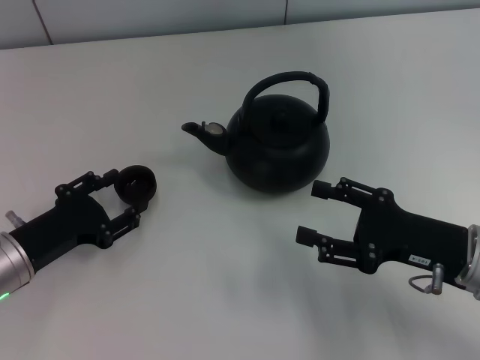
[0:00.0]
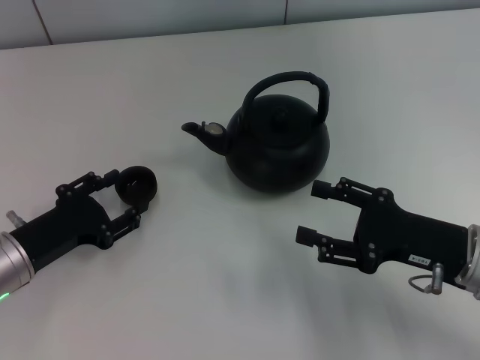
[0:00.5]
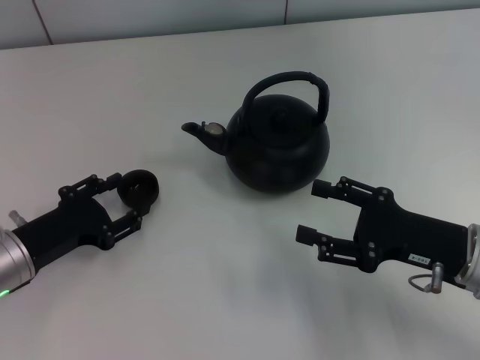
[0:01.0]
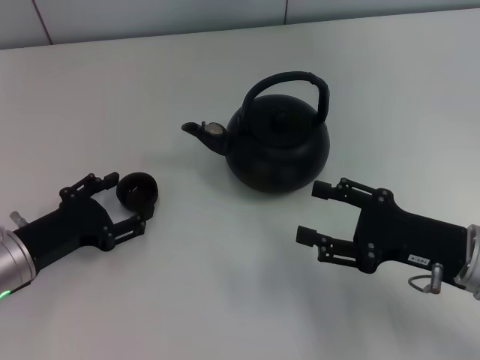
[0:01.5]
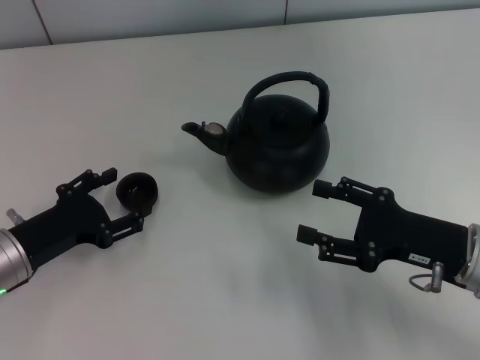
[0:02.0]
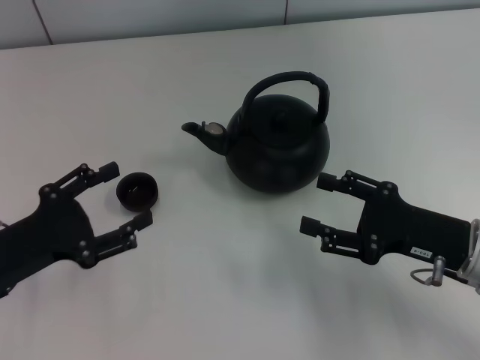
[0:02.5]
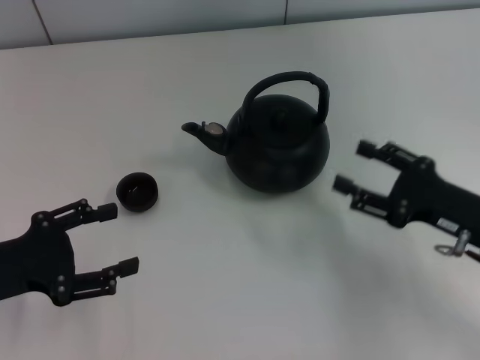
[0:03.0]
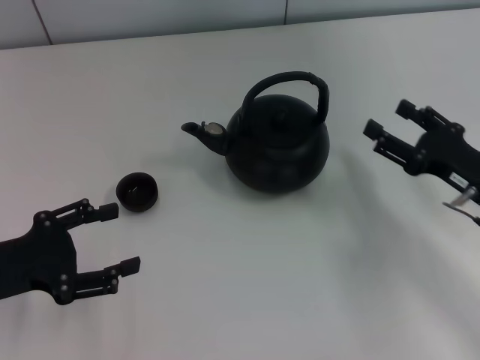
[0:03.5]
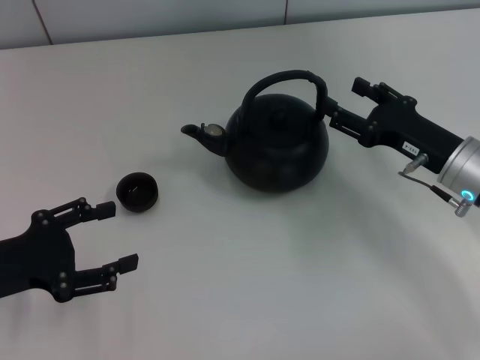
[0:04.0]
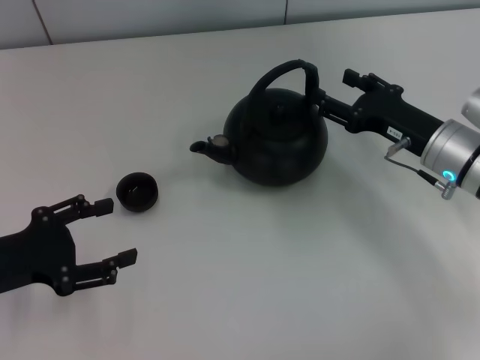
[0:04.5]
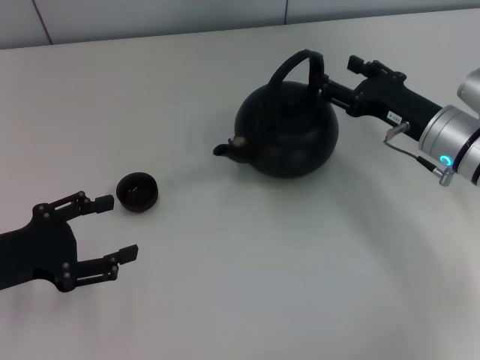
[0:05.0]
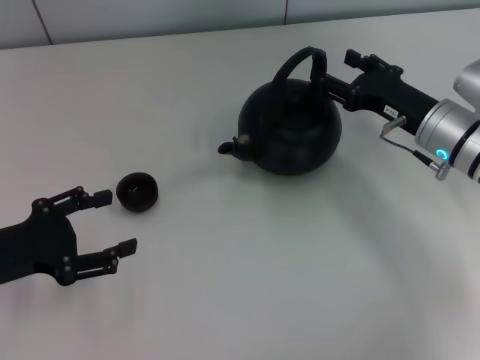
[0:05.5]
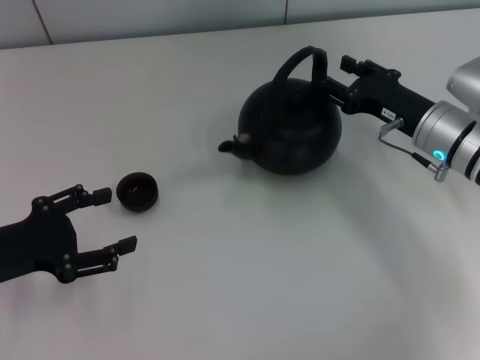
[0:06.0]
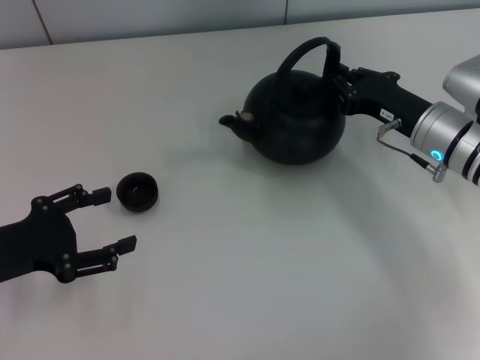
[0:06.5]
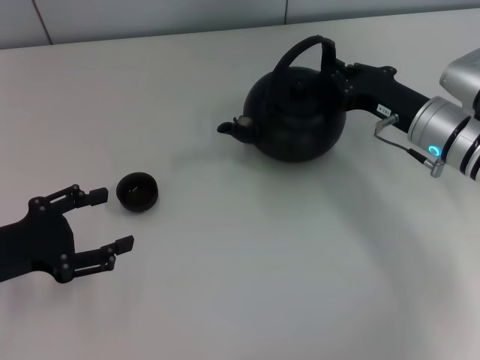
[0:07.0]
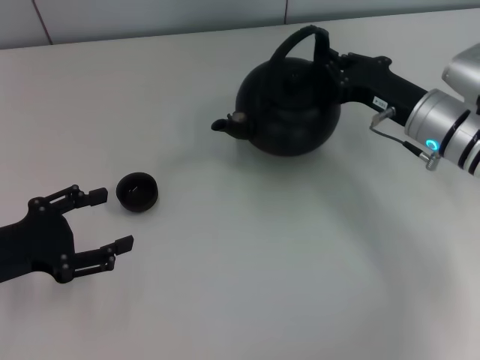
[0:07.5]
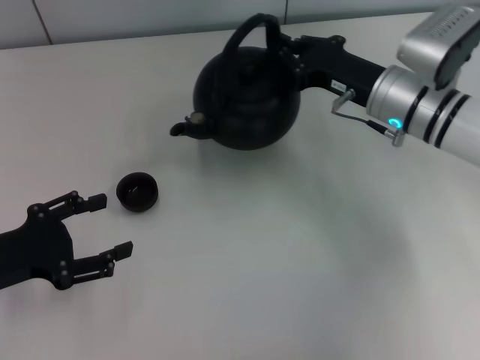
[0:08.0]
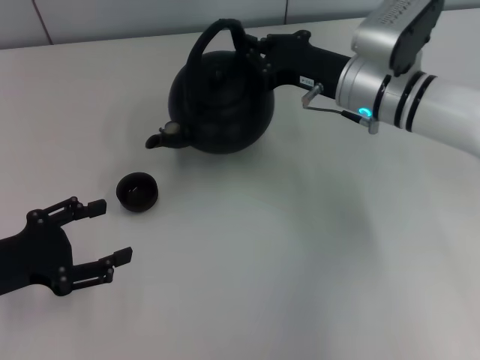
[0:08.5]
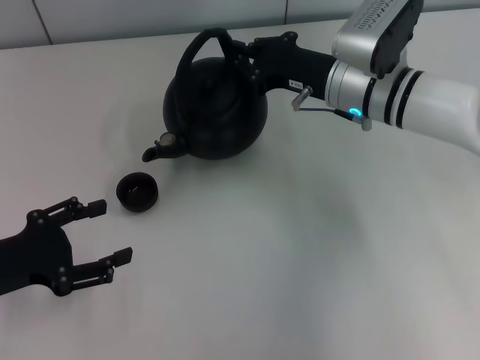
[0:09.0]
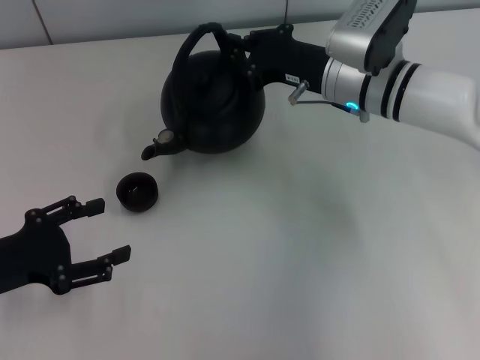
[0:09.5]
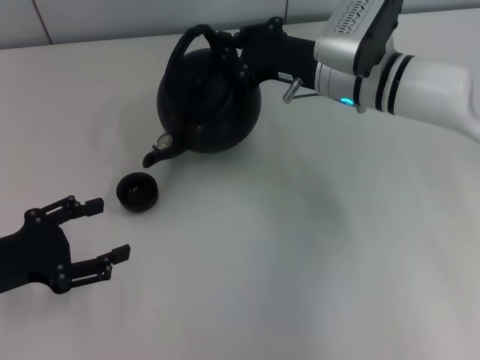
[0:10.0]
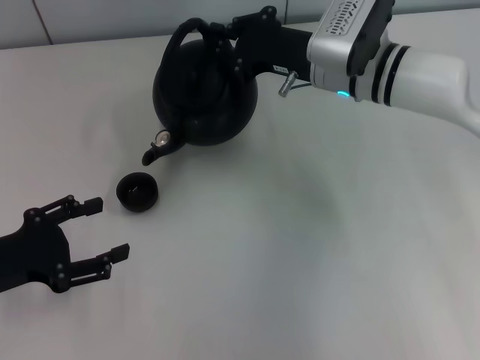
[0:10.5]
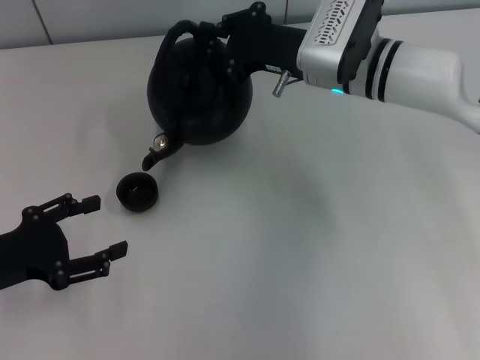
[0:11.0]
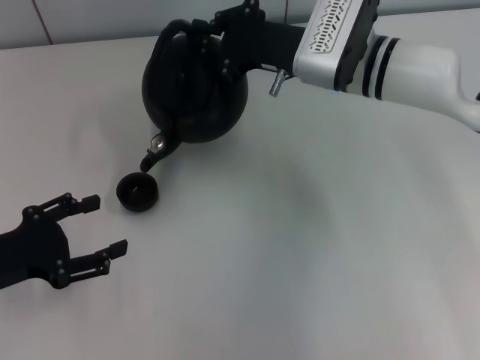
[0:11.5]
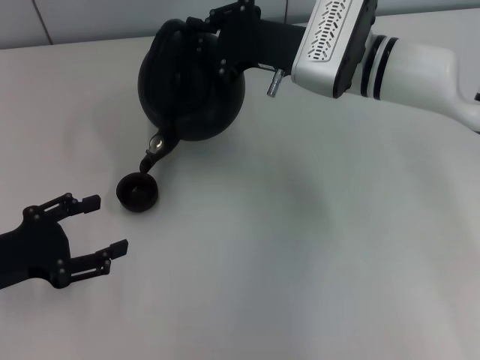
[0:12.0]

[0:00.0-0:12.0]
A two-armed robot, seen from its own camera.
Task of the whole recording: Grasp the handle of the teapot with one hand and pour tea into the teacup.
Step, 0:00.0 to 0:02.0: Place the teacup in the center of view with the left gripper.
Step, 0:02.5 to 0:07.5: Pick up the teapot with the right gripper.
0:00.0 to 0:02.0: The left gripper opens.
0:02.0 to 0:04.0: The right gripper moves forward, roughly 10 cm, while the left gripper shifts about 5 cm upward.
0:04.0 to 0:06.0: The grippers move only a little.
0:06.0 to 0:08.0: The right gripper moves about 5 cm, and closes.
0:08.0 to 0:10.0: The right gripper ends up about 5 cm from where it was.
0:10.0 to 0:12.0: The grippers stay close to where they were, moving slightly.

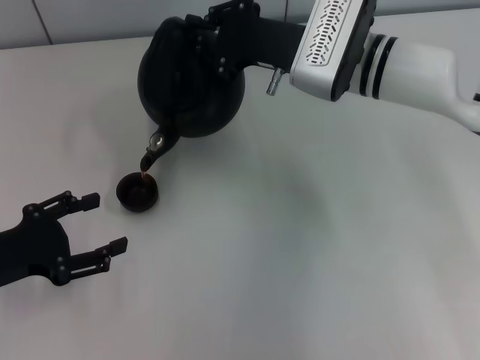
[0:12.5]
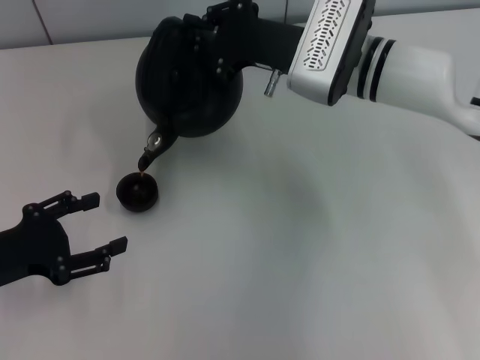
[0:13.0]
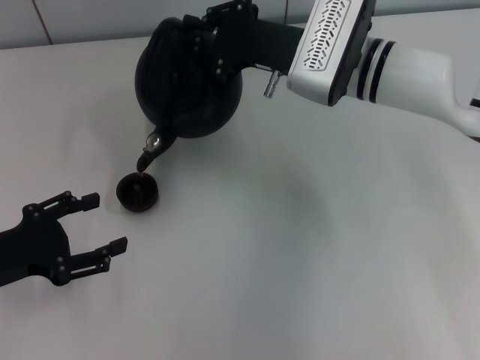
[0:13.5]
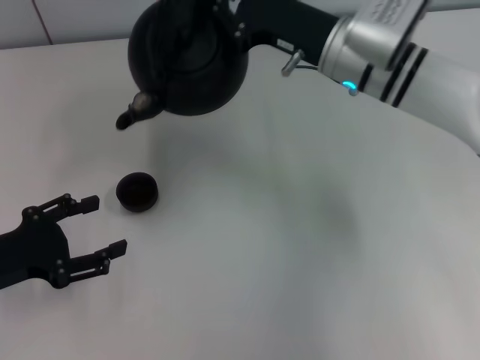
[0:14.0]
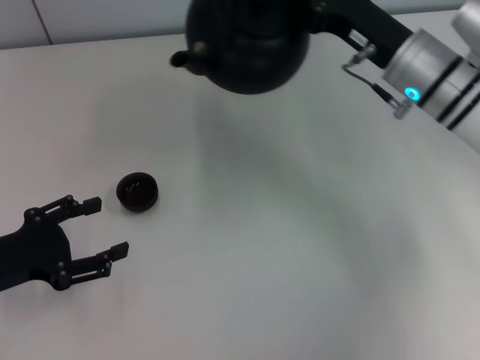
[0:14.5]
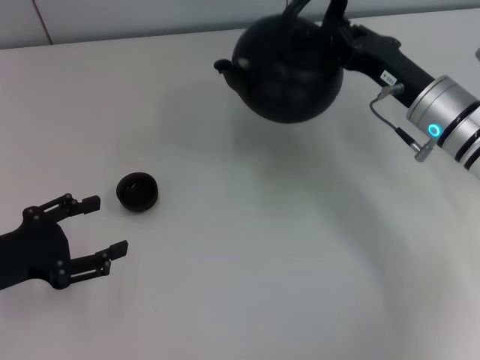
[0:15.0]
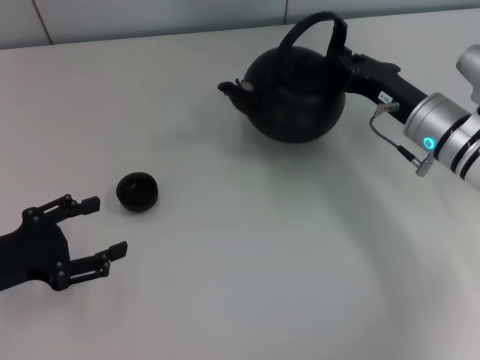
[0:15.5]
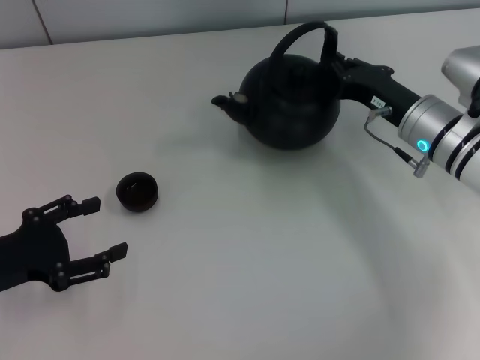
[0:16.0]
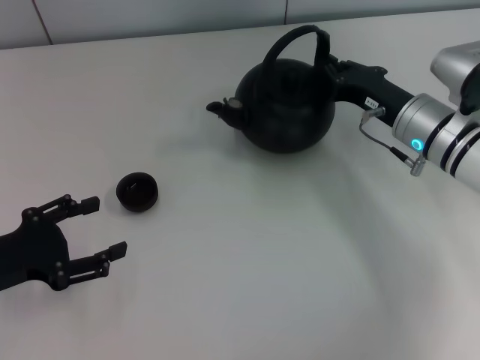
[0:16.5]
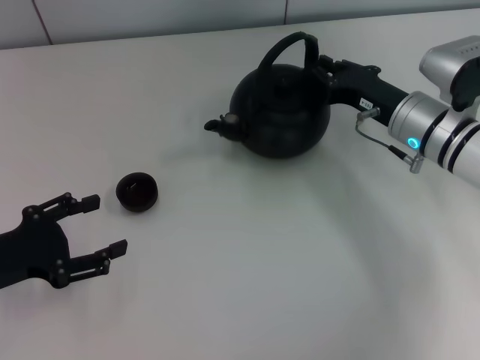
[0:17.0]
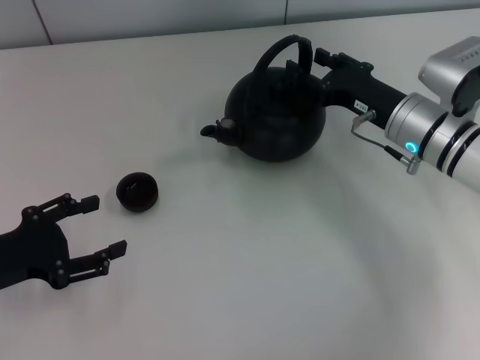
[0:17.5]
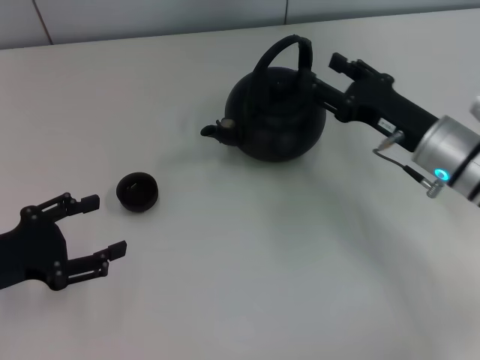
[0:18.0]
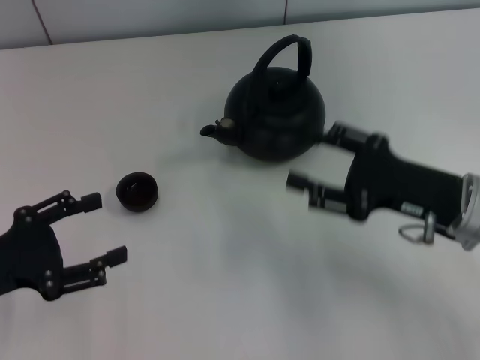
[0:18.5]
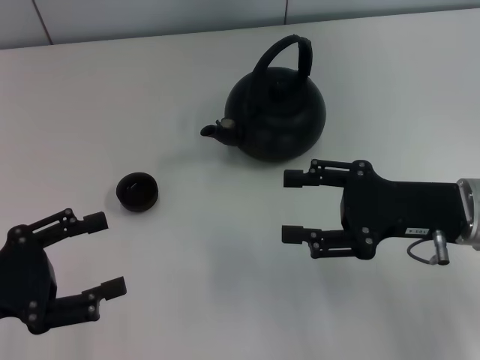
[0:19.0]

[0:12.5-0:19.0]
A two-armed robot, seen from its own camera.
Task of the whole recording: Grasp the handle of the teapot with one hand and pour tea into the teacup.
Step, 0:14.0 to 0:18.0: Put down the teapot with the right gripper.
0:12.5 to 0:14.5: The right gripper shifts approximately 10 cm to the right.
0:14.5 to 0:17.0: The right gripper goes approximately 5 cm downward.
0:17.0 to 0:19.0: The right gripper travels backward by approximately 10 cm, and opens its fingers.

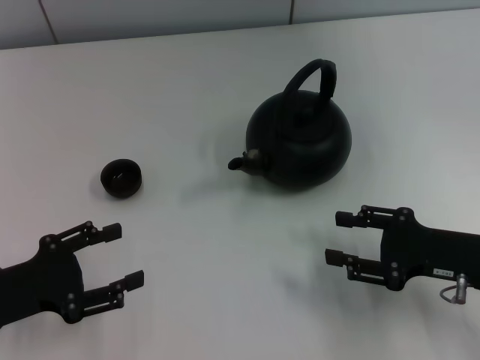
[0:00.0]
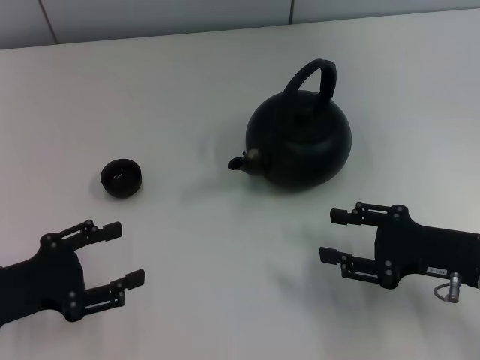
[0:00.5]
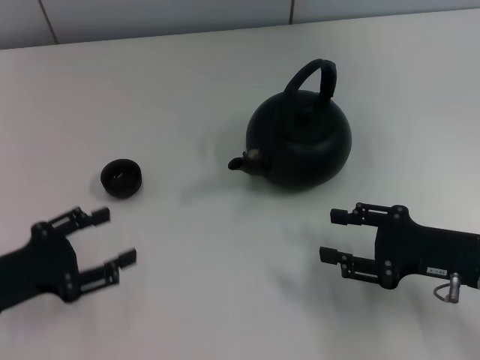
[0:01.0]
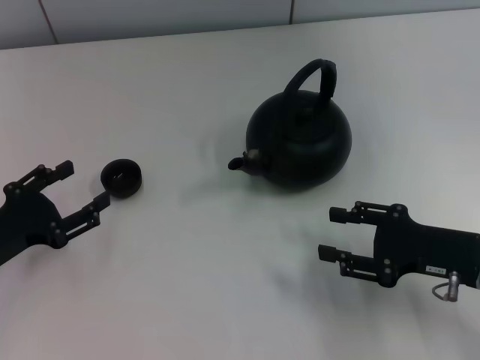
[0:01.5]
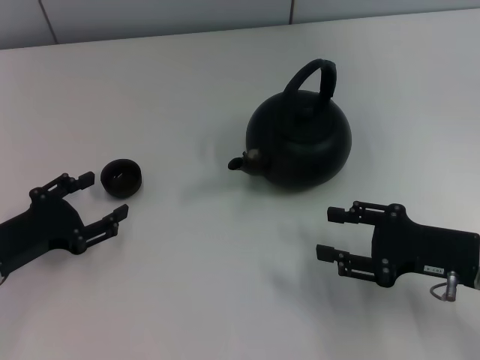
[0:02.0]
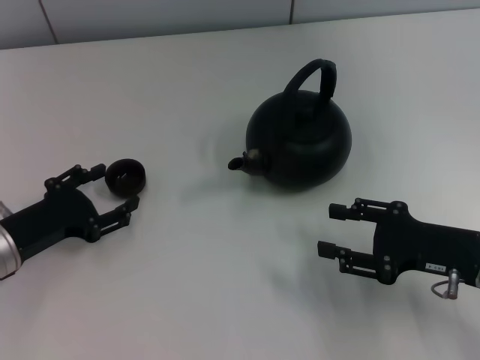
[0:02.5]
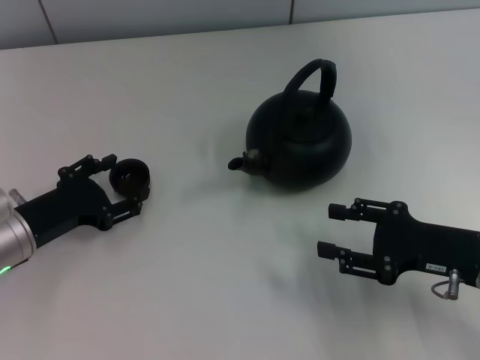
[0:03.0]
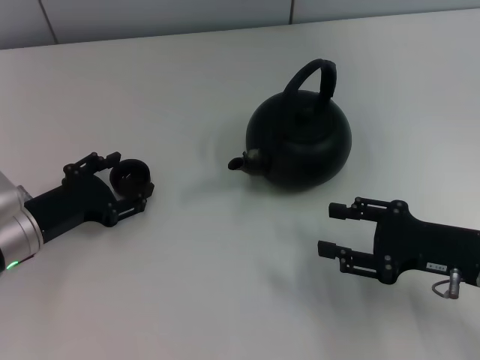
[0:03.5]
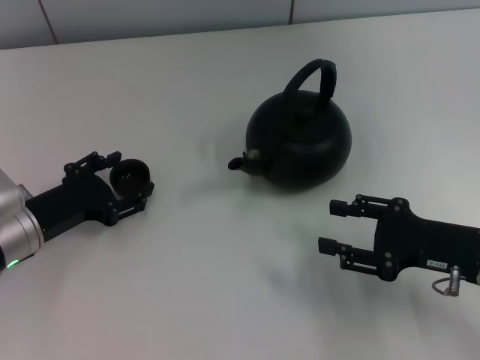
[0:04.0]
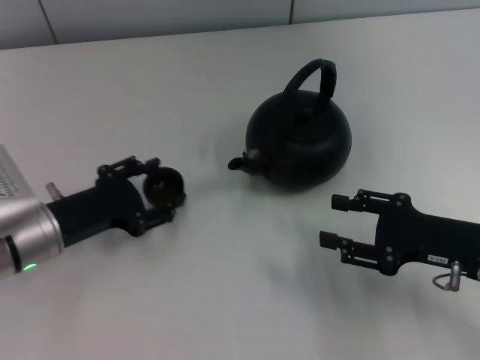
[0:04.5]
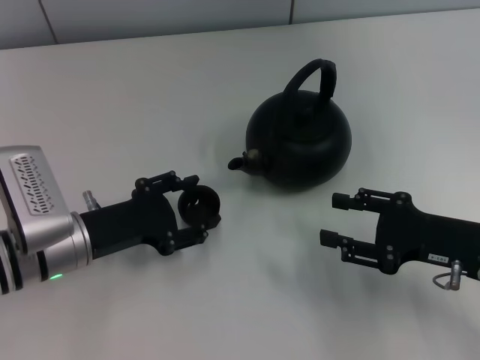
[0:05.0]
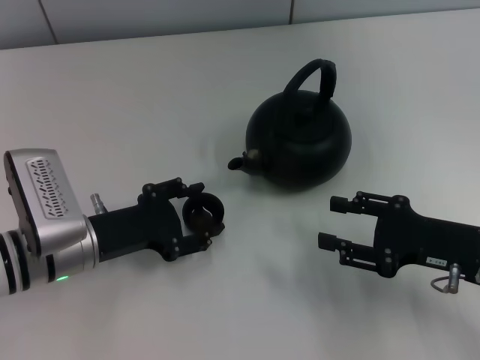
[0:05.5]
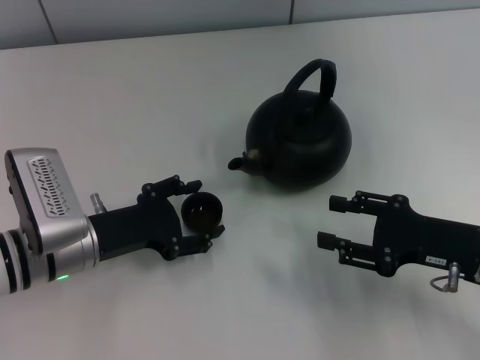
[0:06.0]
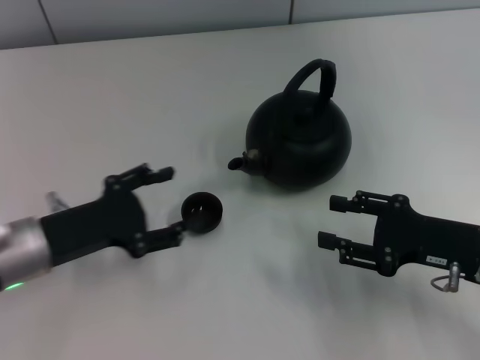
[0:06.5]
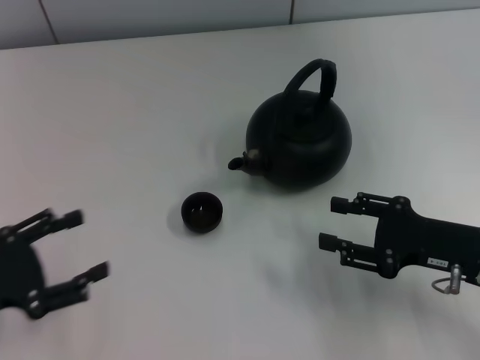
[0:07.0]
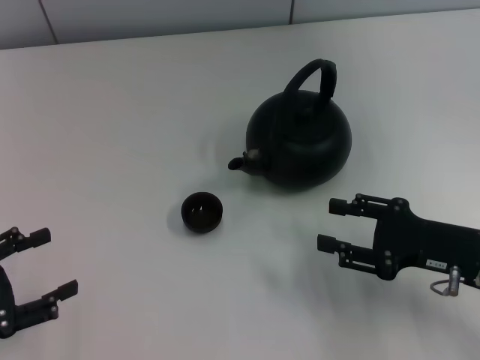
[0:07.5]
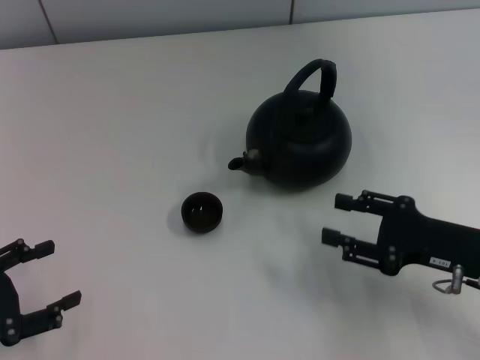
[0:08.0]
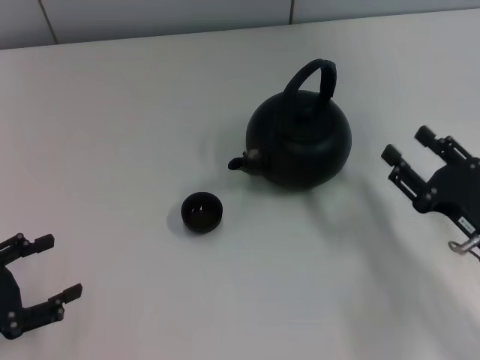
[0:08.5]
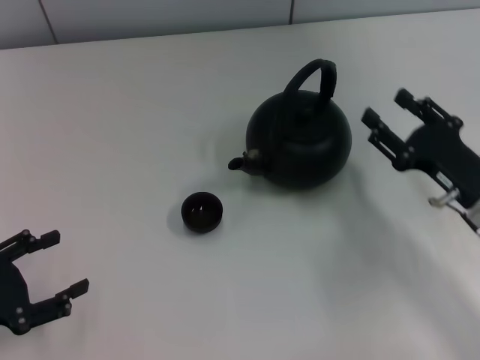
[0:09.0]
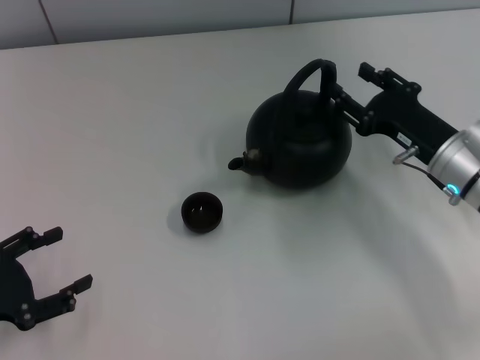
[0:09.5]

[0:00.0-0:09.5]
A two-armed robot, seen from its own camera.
Task of the whole recording: Grasp the handle of the teapot with one hand and pour tea into the teacup.
Step, 0:00.0 to 0:04.0: Pick up the teacup with the left gripper.
Step, 0:04.5 to 0:06.5: Place the teacup in the center of view with the left gripper.
0:02.0 to 0:04.0: The left gripper shifts by roughly 5 cm.
0:04.0 to 0:05.5: The left gripper heads to the right, covering about 5 cm.
0:05.5 to 0:07.5: The left gripper travels to the left and backward by approximately 20 cm.
0:07.5 to 0:09.5: The right gripper moves forward, roughly 10 cm.
